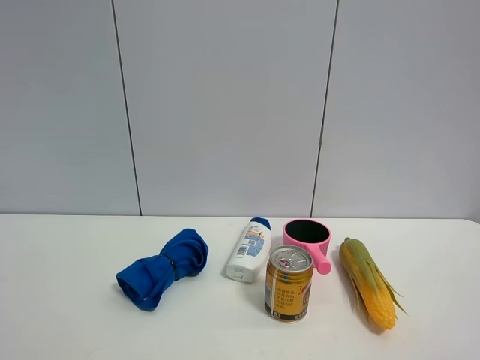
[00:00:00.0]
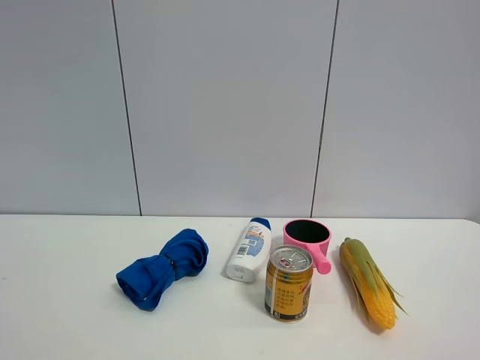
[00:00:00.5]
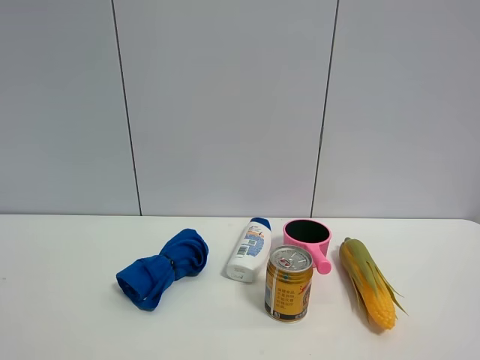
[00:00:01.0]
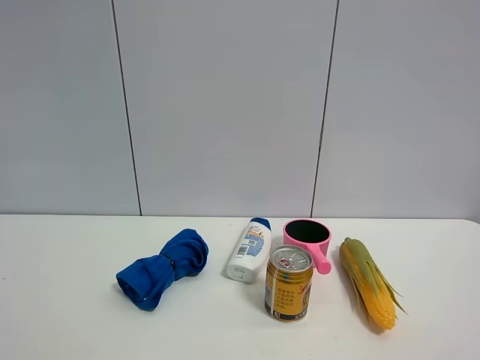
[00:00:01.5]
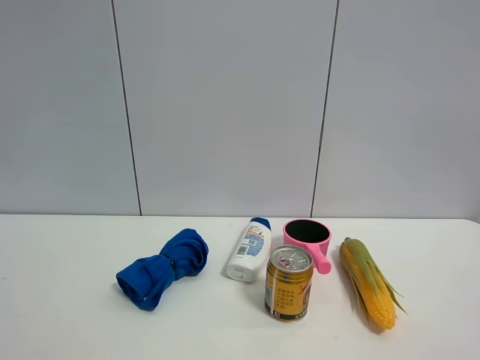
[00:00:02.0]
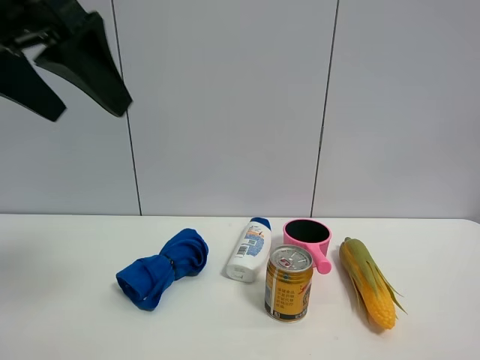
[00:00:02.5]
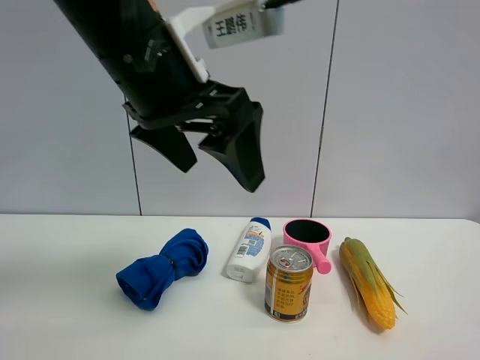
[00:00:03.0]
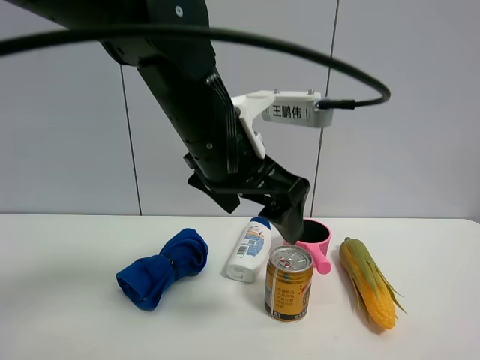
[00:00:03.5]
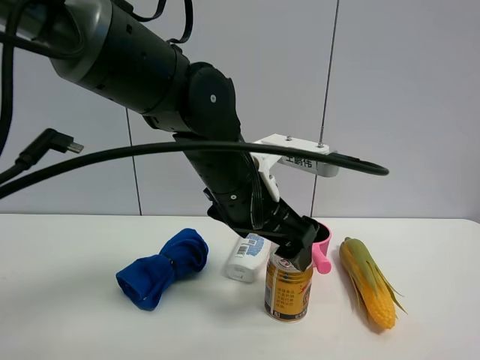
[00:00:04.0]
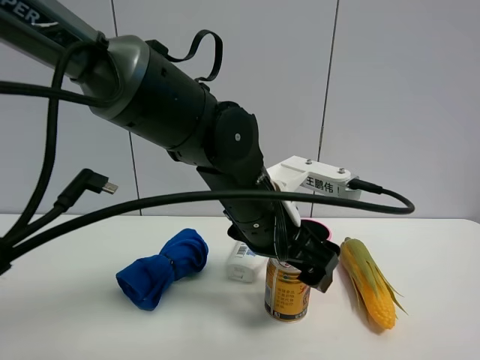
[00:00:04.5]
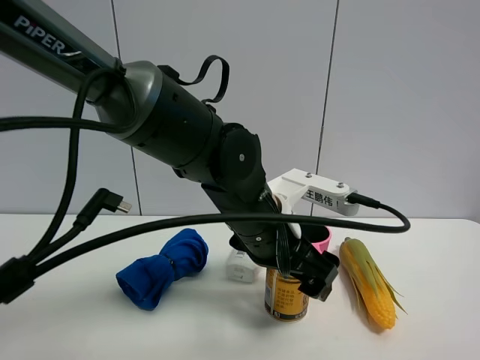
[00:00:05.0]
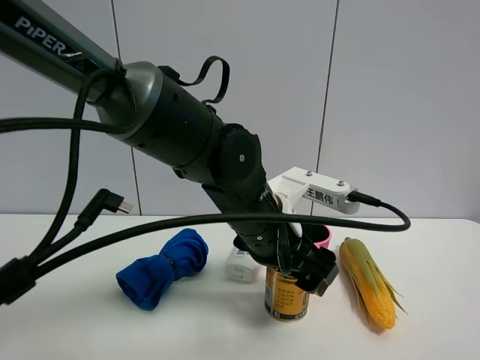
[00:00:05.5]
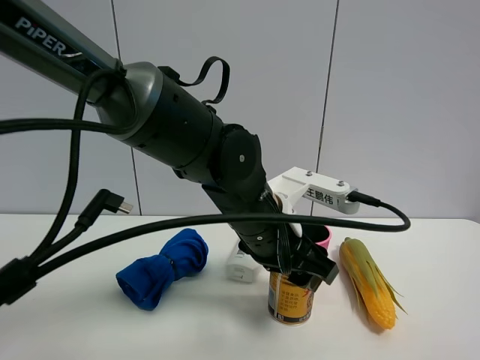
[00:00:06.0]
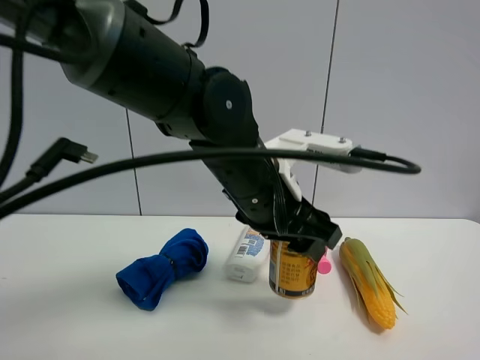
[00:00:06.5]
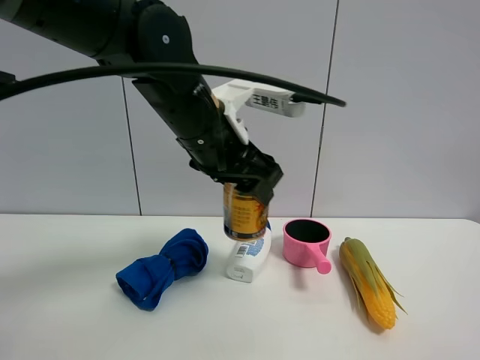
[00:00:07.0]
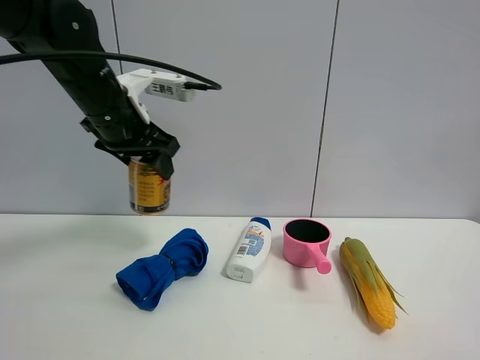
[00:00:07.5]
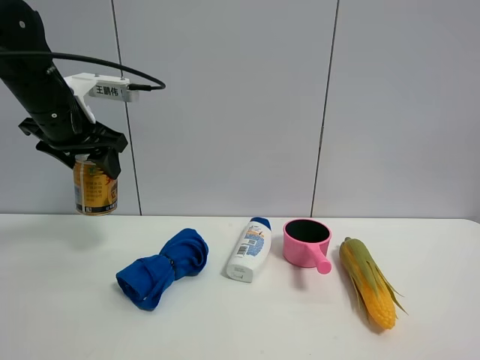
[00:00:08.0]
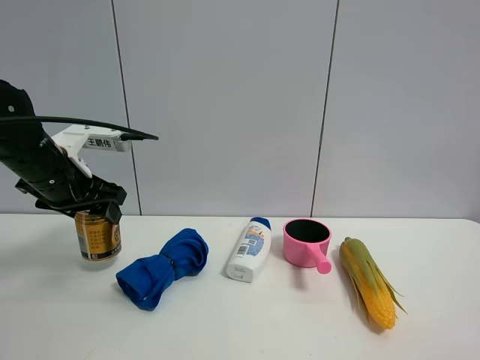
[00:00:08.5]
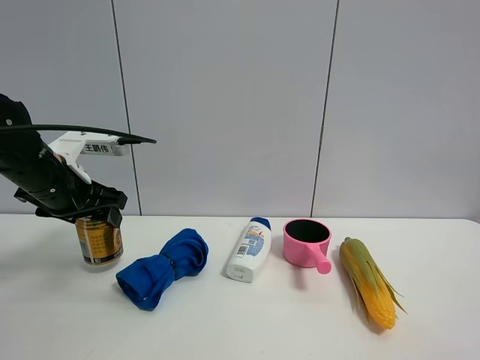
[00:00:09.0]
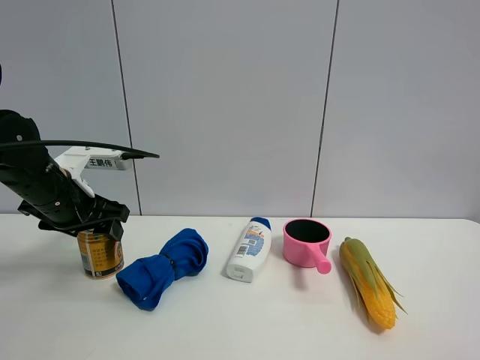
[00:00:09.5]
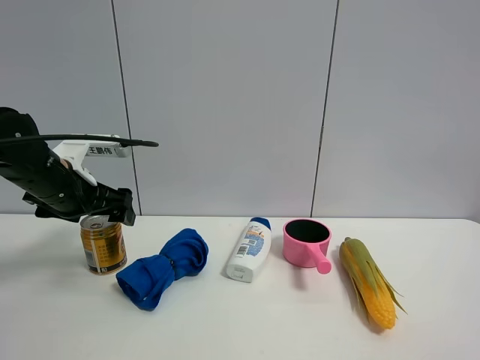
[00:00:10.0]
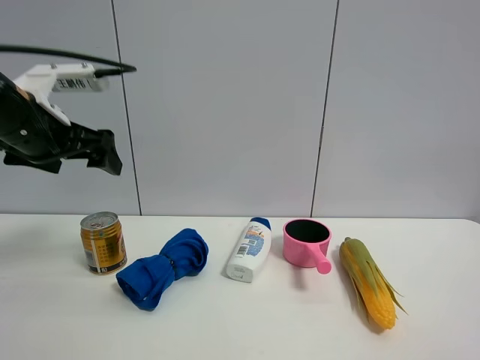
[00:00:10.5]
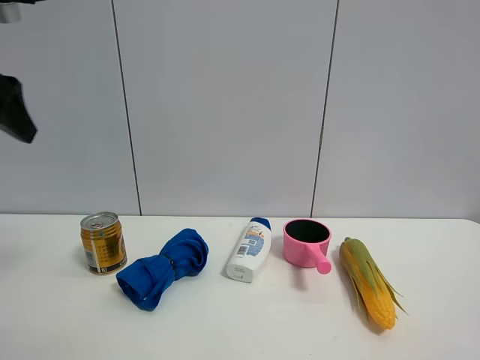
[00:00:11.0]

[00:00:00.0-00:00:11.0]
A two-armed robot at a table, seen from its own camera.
Task of the whole recording: the gripper move the object.
Step, 00:00:00.0 to 00:00:05.5: Grasp the red bull with the left gripper.
Step, 00:00:06.0 to 00:00:10.0: Place the red bull on the table with the left gripper.
00:00:02.0 to 00:00:03.5: The left gripper goes some 35 cm to the right, downward and forward.
00:00:03.5 to 00:00:05.5: The left gripper goes about 10 cm downward, and closes.
00:00:05.5 to 00:00:07.5: The left gripper travels to the left, upward and forward by about 25 cm, and closes its fingers.
00:00:07.5 to 00:00:09.0: The left gripper heads downward and to the left, covering approximately 10 cm.
00:00:09.0 to 00:00:11.0: The left gripper travels upward and backward by approximately 20 cm, and opens up.

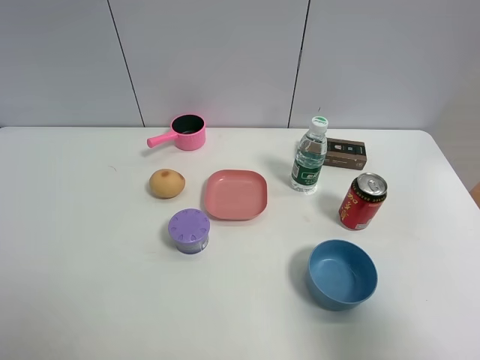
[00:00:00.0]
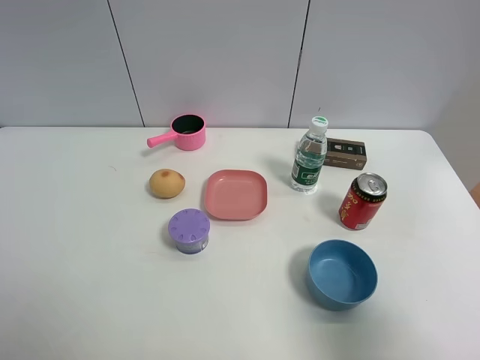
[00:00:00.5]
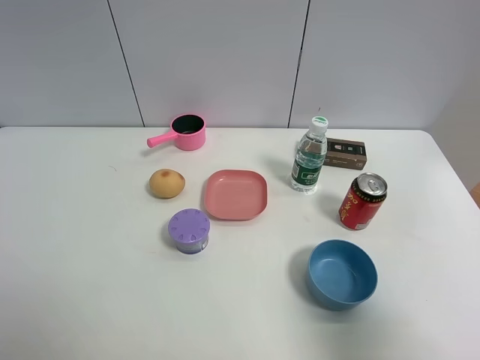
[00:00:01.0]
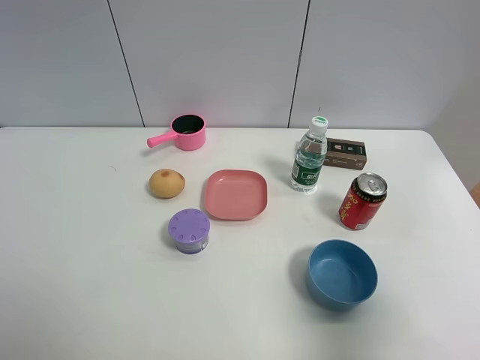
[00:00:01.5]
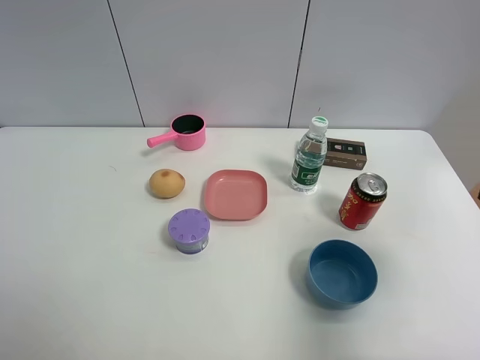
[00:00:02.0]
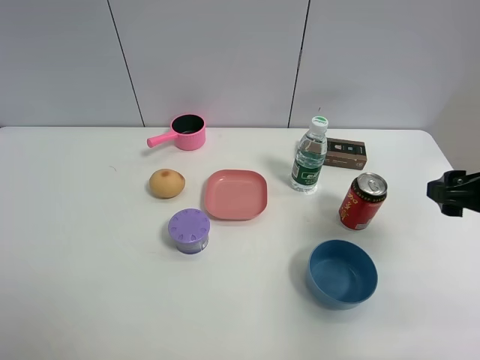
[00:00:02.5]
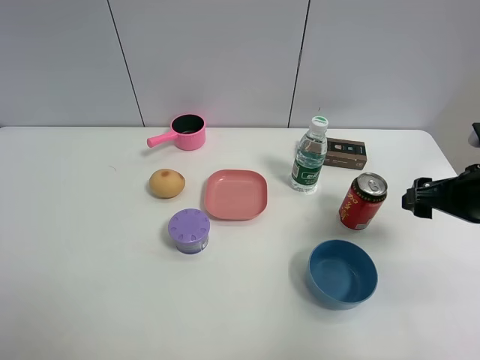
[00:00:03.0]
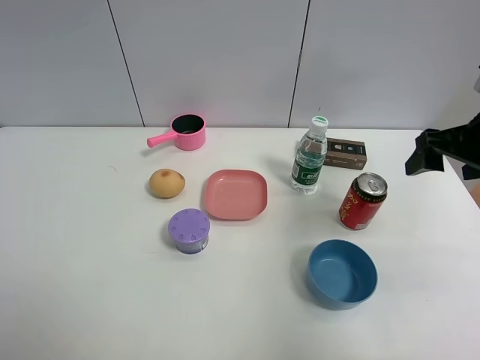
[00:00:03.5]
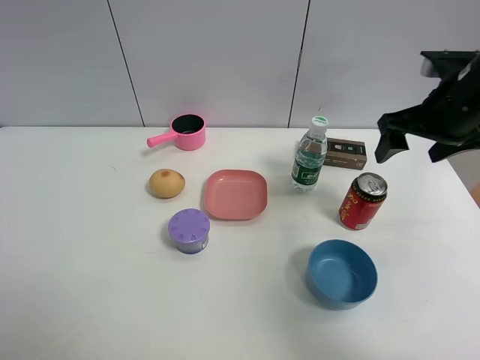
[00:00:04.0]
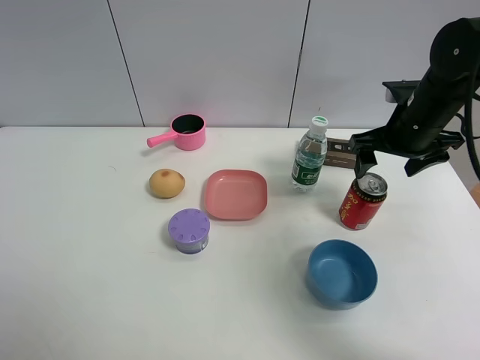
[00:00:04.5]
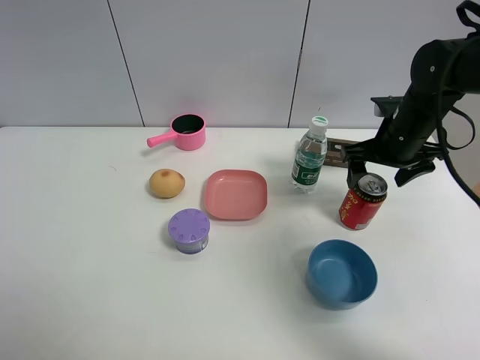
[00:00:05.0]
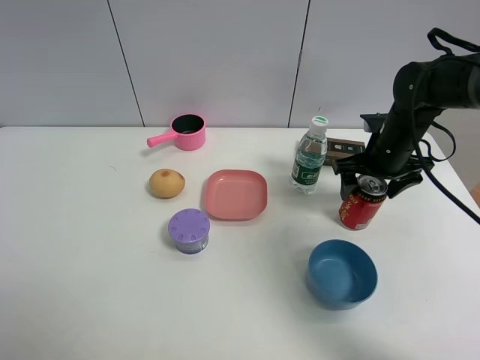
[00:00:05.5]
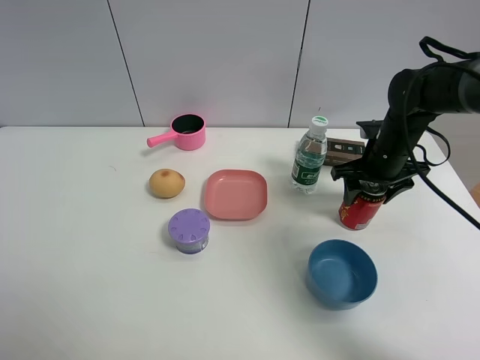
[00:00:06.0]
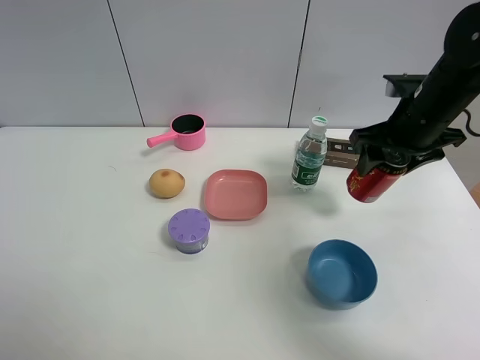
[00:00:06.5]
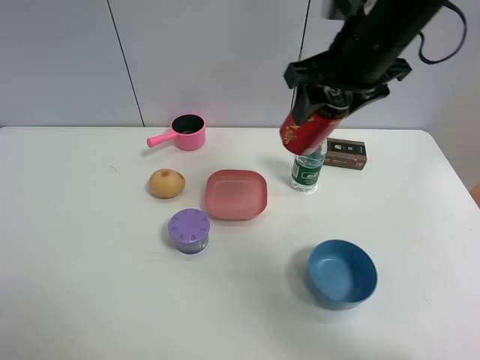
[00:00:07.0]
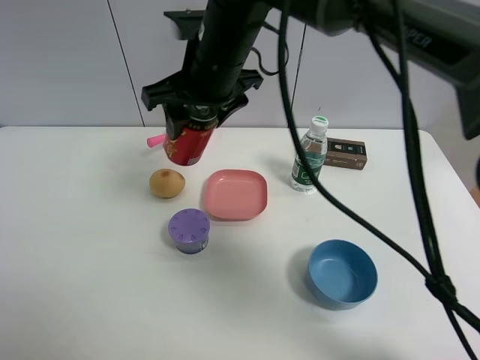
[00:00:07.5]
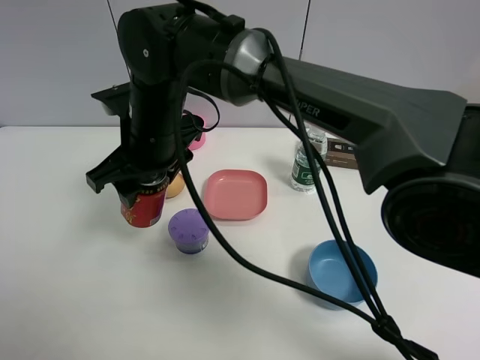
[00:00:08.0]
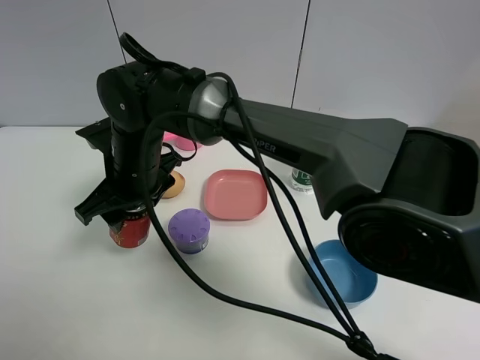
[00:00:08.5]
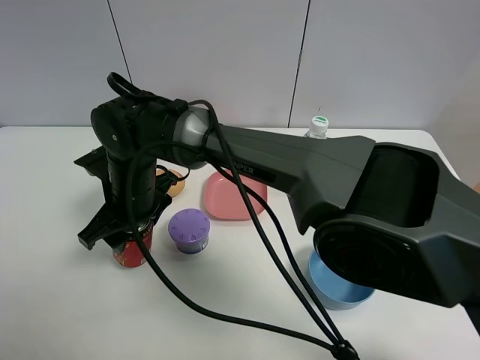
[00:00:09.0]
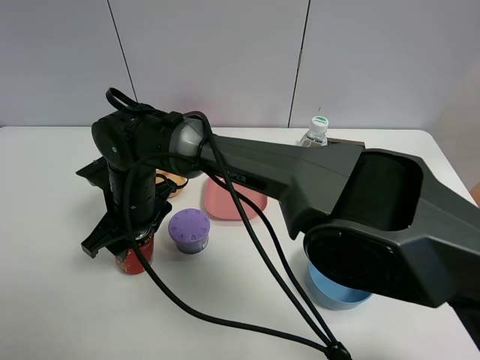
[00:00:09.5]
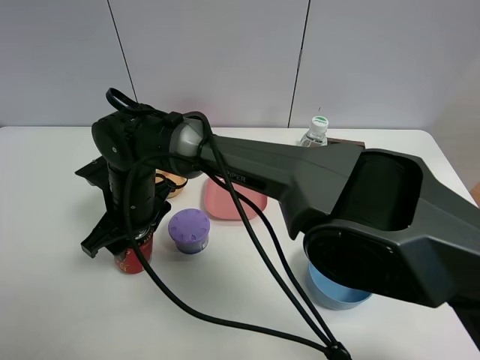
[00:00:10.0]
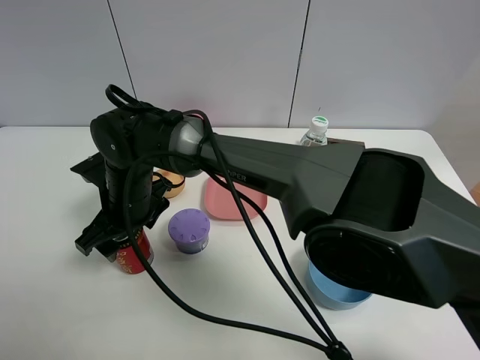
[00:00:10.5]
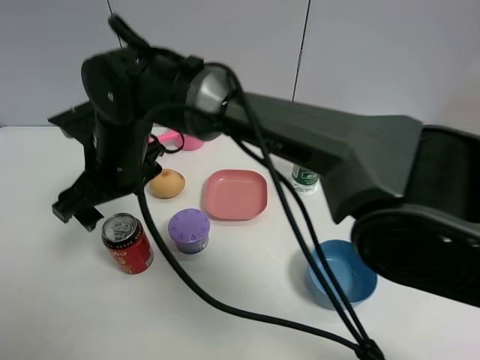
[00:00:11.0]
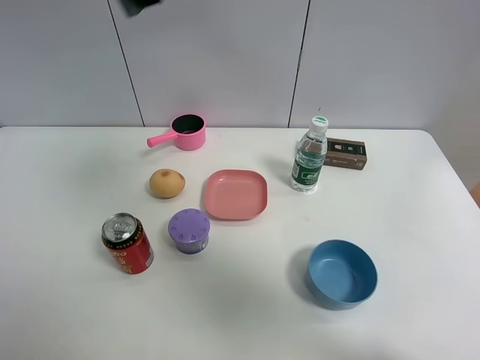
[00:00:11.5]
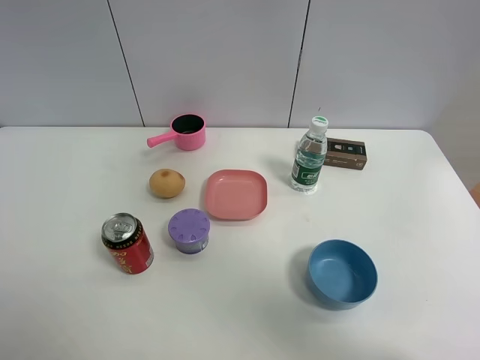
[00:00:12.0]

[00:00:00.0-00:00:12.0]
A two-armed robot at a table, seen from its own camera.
Task of the whole recording: the gripper move the object.
Step, 00:00:00.0 to 00:00:06.0: Grasp the Jia Duo Bao with the right gripper.
Step, 00:00:06.5 to 00:00:11.0: Place the Jia Duo Bao on the table with the right gripper.
00:00:00.0 to 00:00:02.0: The right gripper shifts about 10 cm forward, and closes, then opens again.
00:00:02.0 to 00:00:04.0: The right gripper travels forward by about 20 cm.
00:00:04.0 to 00:00:06.0: The right gripper goes about 15 cm downward and forward.
00:00:06.0 to 00:00:08.0: The right gripper shifts roughly 35 cm to the left.
00:00:08.0 to 00:00:10.0: The right gripper goes about 10 cm downward.
00:00:10.0 to 00:00:12.0: The right gripper is displaced upward and to the right by roughly 50 cm.

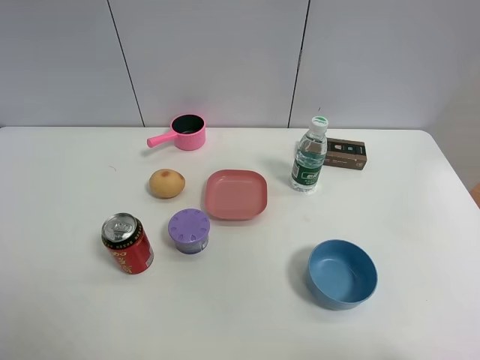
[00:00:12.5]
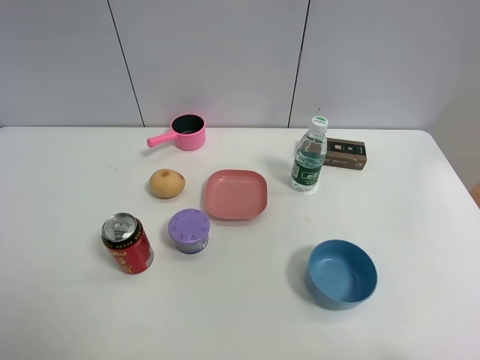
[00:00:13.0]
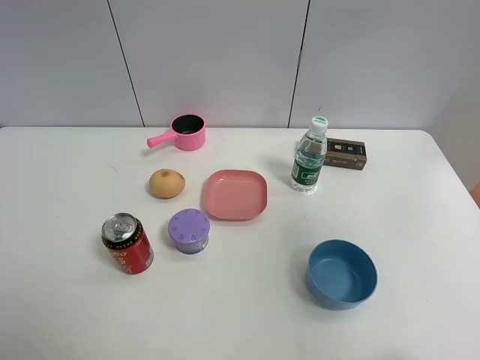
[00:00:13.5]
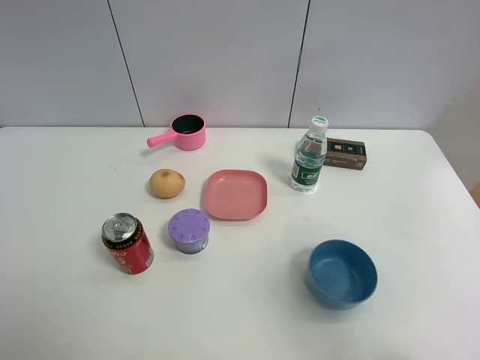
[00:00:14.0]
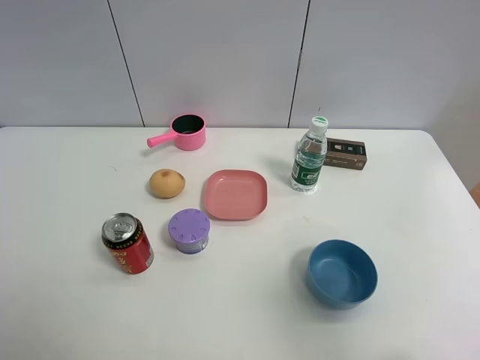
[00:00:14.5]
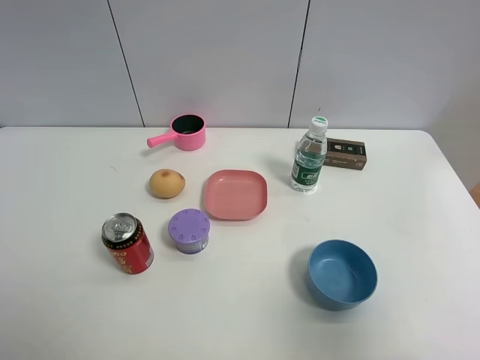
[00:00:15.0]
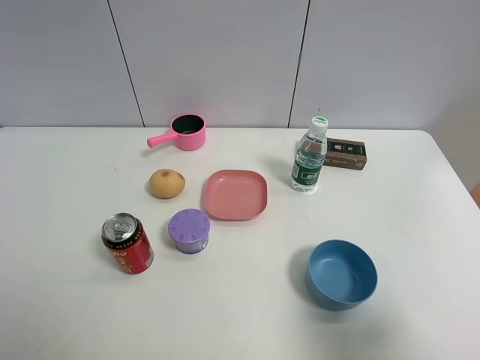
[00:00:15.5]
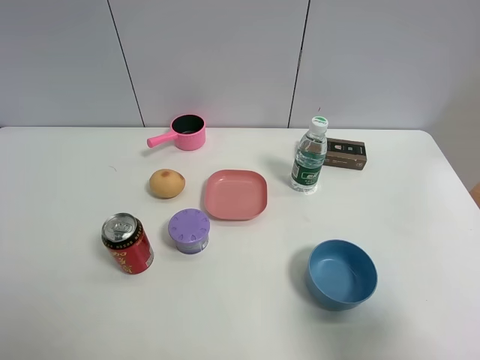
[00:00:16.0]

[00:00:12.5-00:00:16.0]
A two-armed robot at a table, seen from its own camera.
Task of the whole recording: the gripper move the object.
00:00:12.5 to 00:00:14.5: The right gripper moves downward, some 25 cm.
00:00:14.5 to 00:00:16.0: The right gripper goes approximately 10 cm downward.
